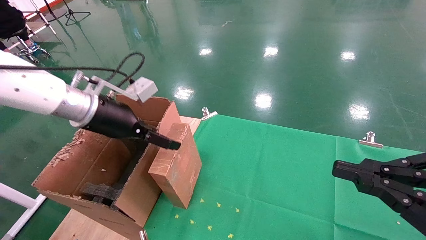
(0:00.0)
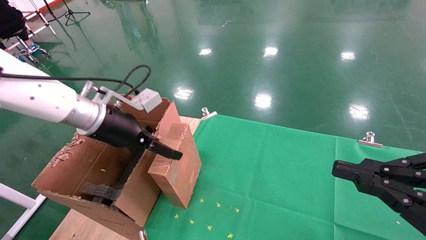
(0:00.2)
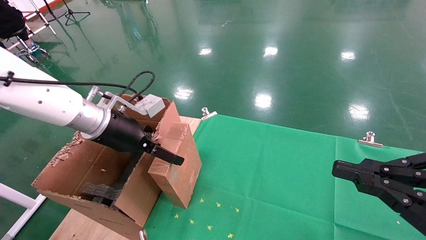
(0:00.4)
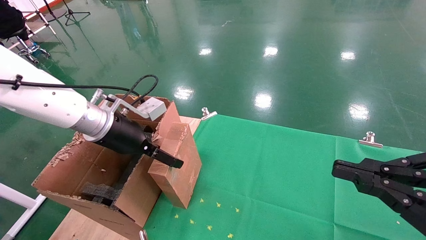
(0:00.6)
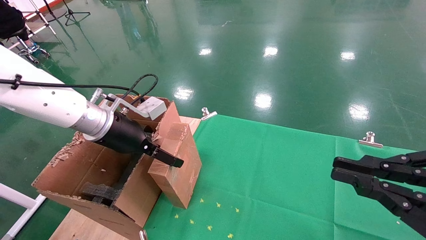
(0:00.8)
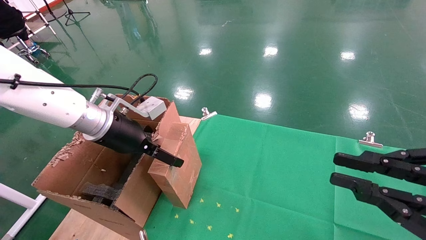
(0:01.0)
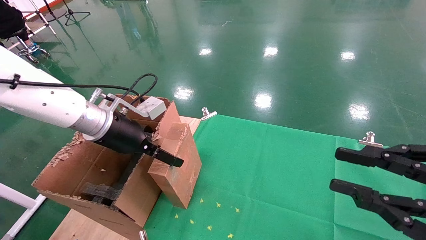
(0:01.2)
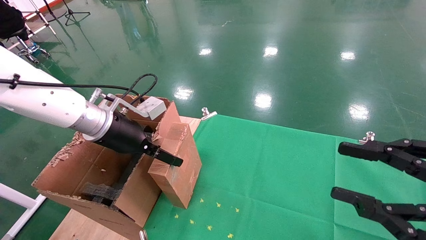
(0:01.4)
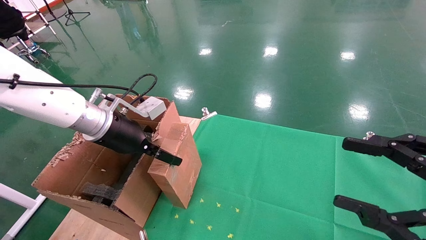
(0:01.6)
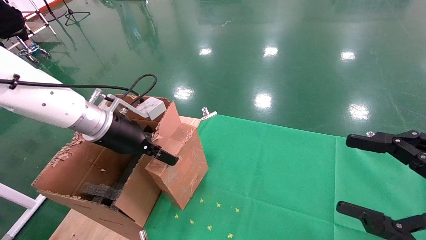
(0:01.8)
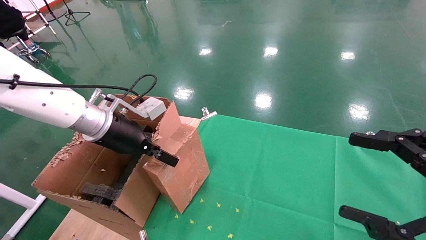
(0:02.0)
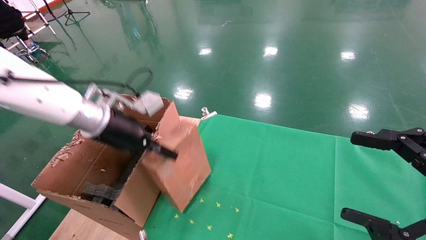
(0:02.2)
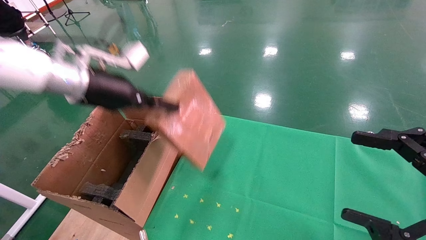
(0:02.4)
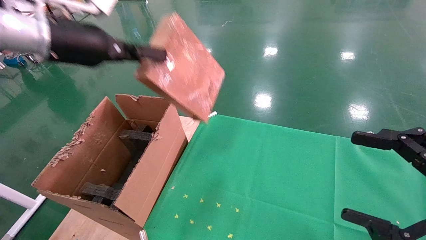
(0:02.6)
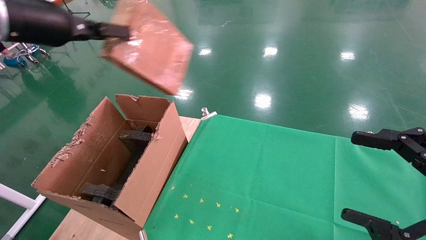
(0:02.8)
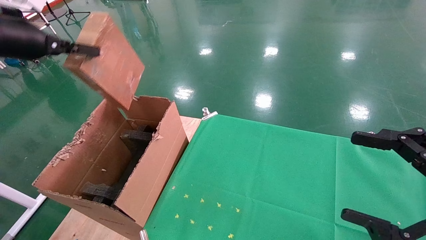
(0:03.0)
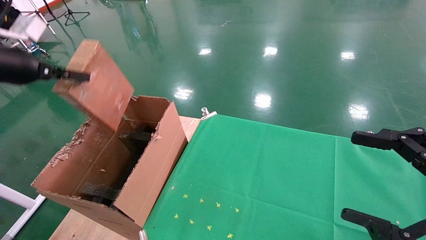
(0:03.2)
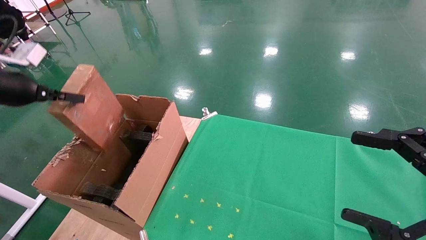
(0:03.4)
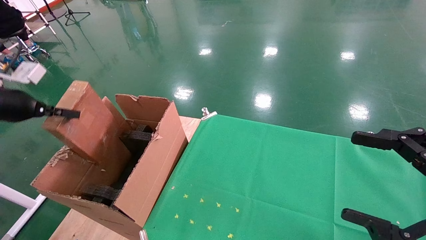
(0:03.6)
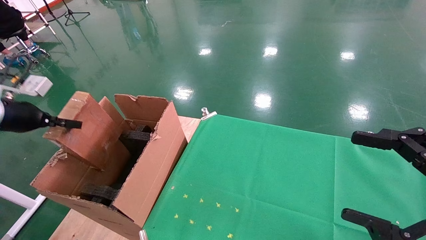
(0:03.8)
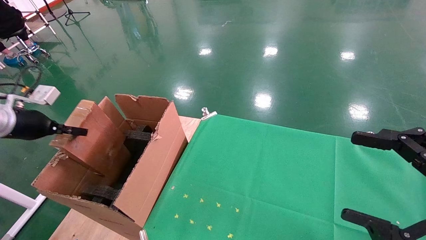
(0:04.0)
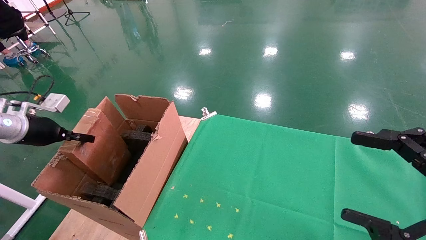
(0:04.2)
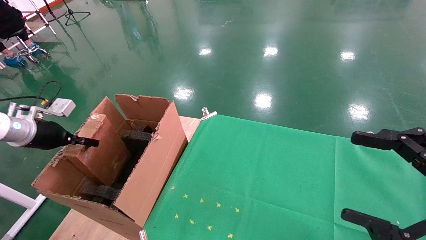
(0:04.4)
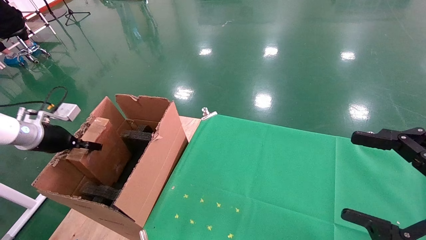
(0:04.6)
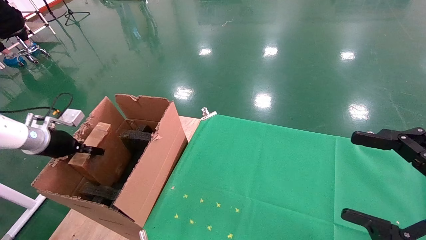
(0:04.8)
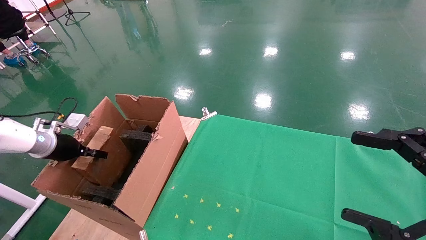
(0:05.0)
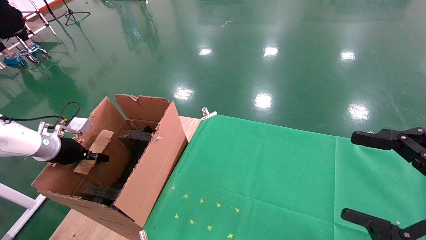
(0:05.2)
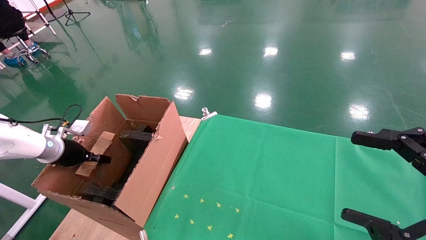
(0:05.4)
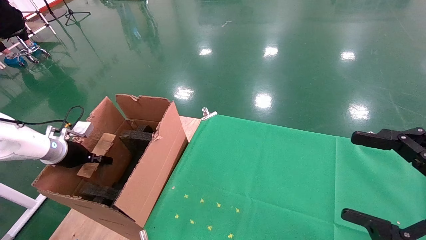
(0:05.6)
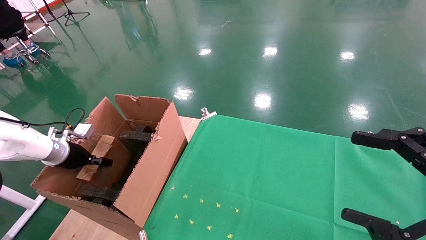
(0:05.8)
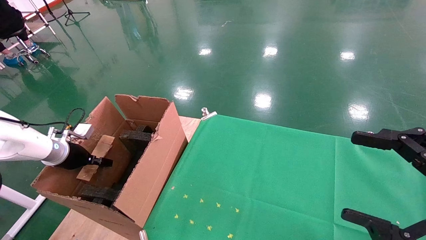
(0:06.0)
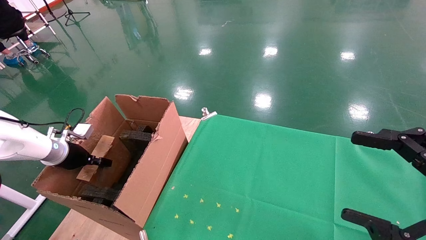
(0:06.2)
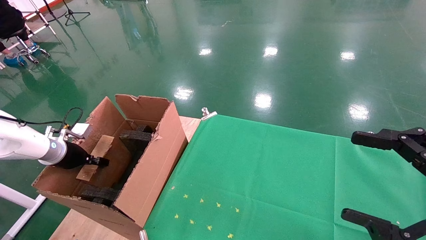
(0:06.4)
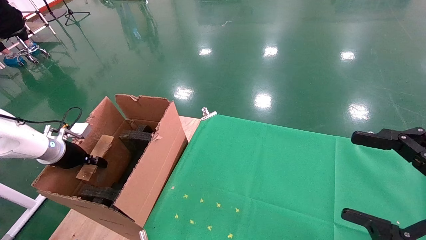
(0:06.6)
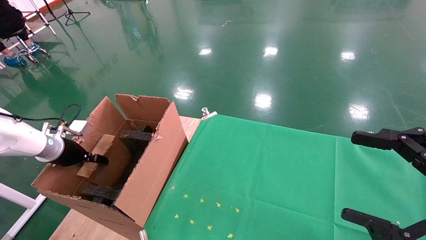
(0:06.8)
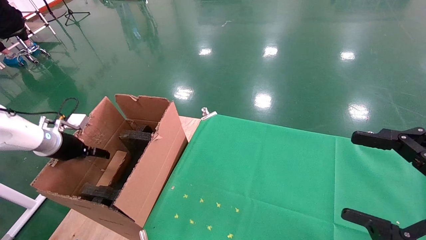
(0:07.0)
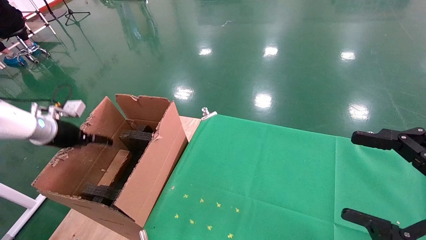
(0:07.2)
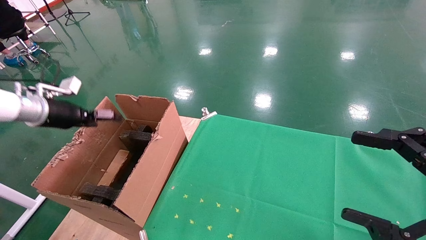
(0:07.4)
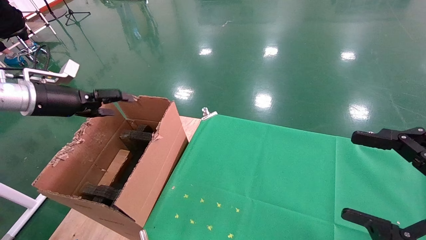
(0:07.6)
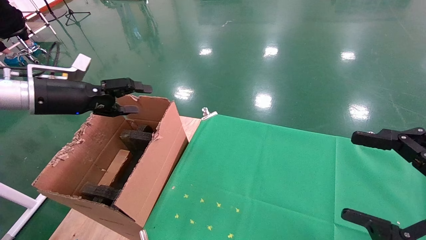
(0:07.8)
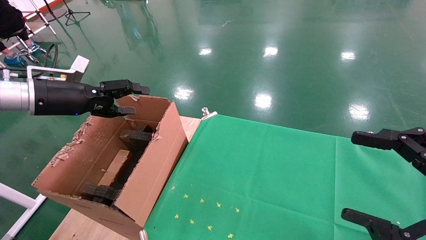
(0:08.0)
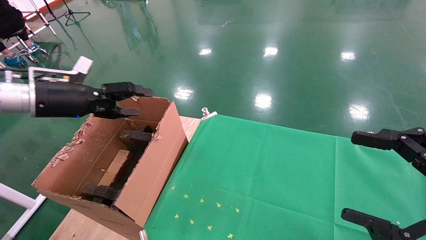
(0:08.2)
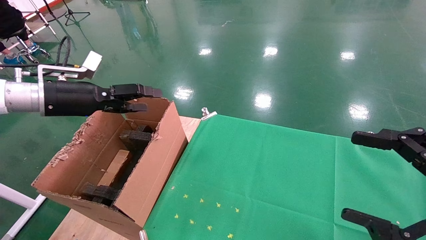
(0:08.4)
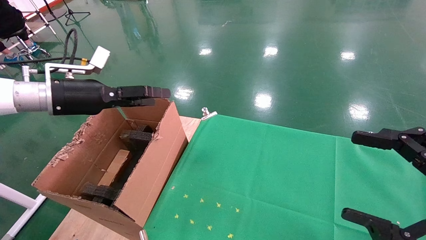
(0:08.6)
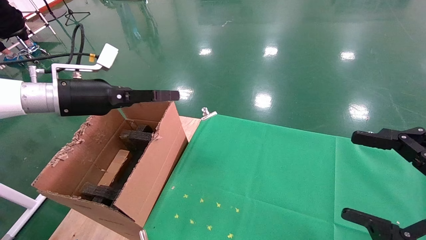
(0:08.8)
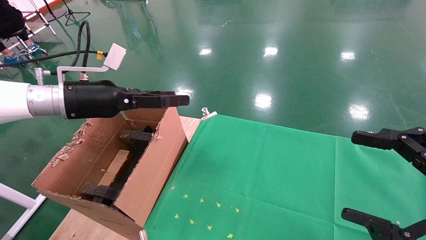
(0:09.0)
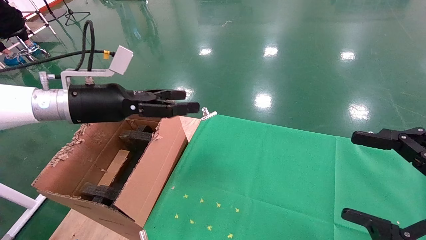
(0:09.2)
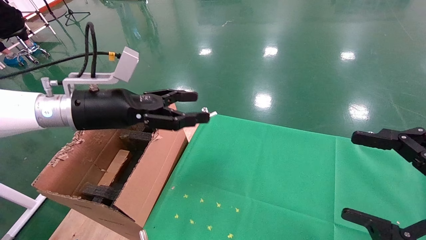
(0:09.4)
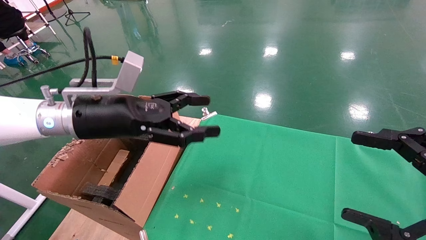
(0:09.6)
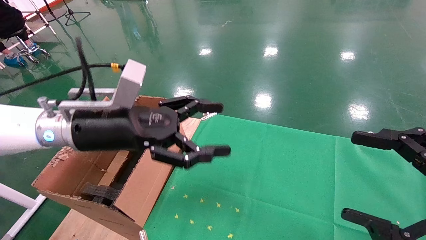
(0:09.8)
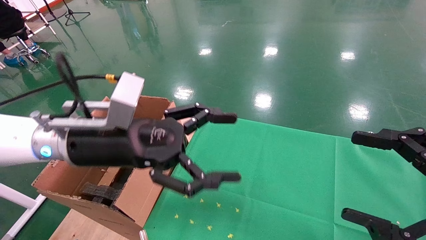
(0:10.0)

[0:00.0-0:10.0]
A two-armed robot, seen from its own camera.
Task of the whole recording: using a robotic arm to pick up a cardboard box and palace it the carton.
Step, 0:01.8 to 0:07.4: Place the mouse and the power cord paper box into the container.
0:00.0 to 0:01.4: The right gripper opens up.
0:01.4 to 0:02.8: The right gripper opens its fingers, while the left gripper travels upward and to the left by roughly 20 cm, and closes up.
0:02.8 to 0:04.2: The left gripper travels downward and to the left by some 25 cm.
0:04.2 to 0:05.8: The left gripper moves downward and forward, approximately 10 cm.
0:05.8 to 0:07.2: The left gripper shifts about 10 cm upward, and opens its fingers.
0:07.2 to 0:08.6: The left gripper goes approximately 15 cm to the right and upward.
0:08.6 to 0:10.0: The left gripper is displaced to the right and backward by some 20 cm.

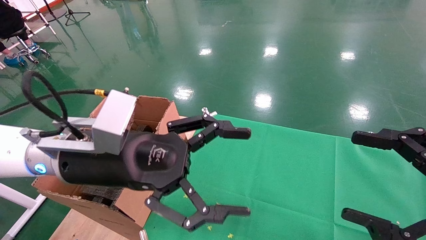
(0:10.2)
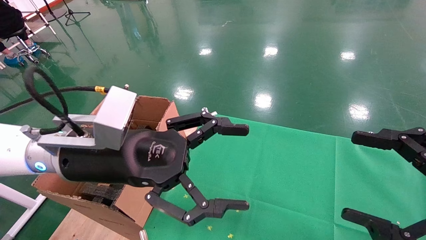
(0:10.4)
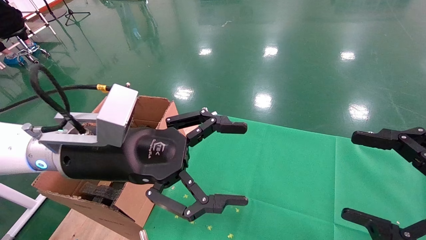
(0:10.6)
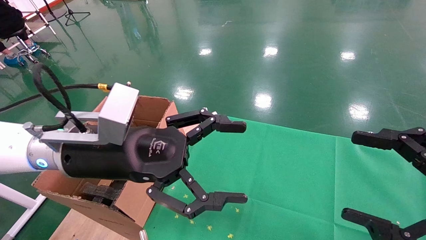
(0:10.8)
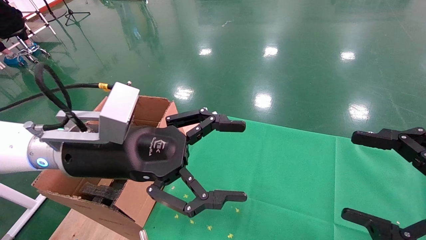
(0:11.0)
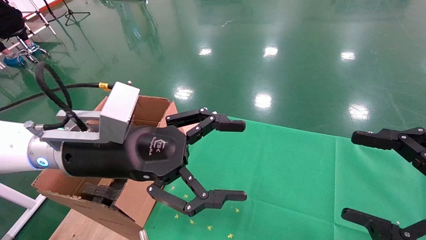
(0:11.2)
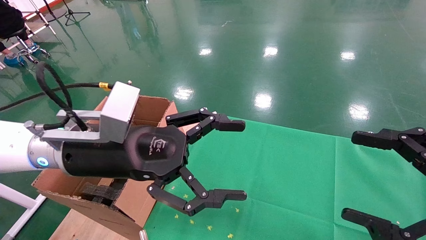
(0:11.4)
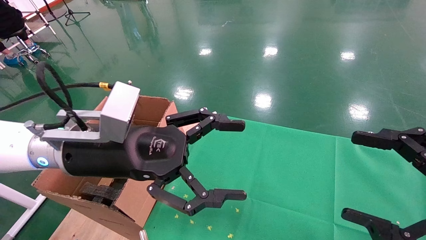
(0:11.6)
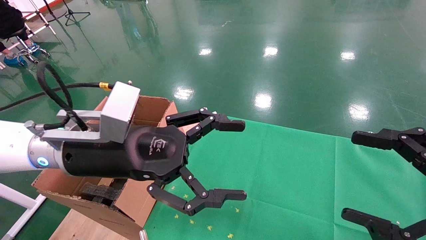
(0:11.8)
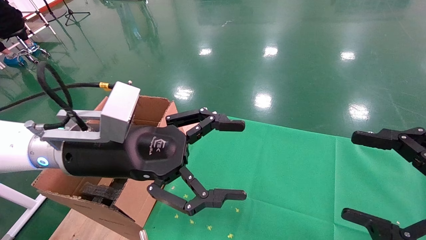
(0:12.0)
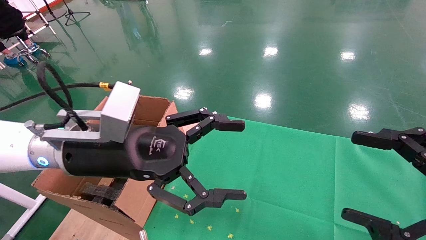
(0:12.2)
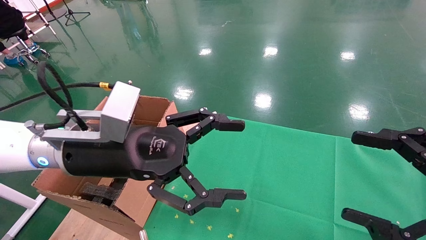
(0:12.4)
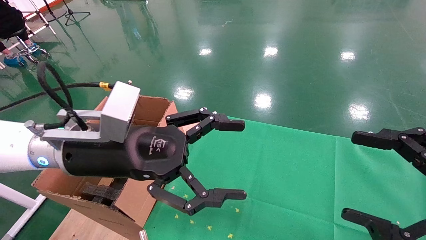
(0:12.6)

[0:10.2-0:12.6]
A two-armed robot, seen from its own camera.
Task of the whole recording: using a robotic arm to pick up a cardboard box and palace it the carton.
0:10.2 to 0:12.6: Both grippers stay put.
